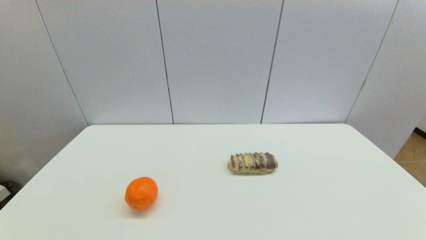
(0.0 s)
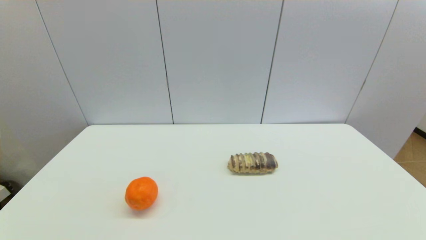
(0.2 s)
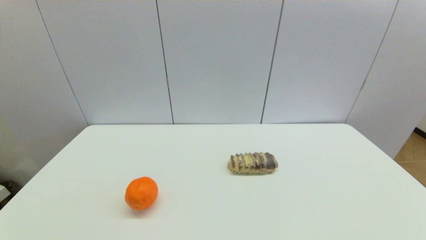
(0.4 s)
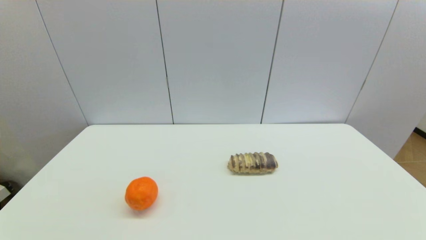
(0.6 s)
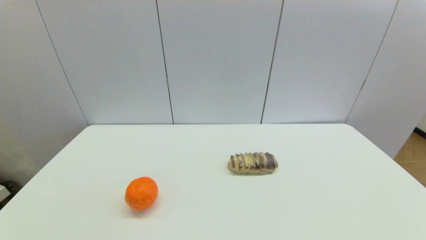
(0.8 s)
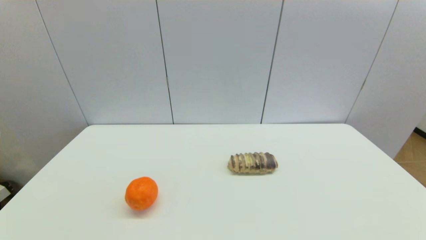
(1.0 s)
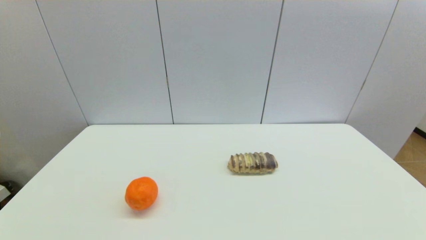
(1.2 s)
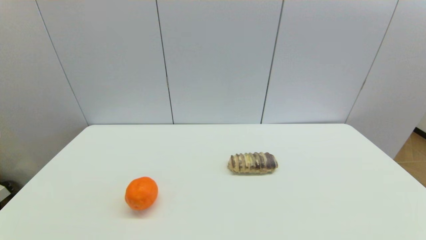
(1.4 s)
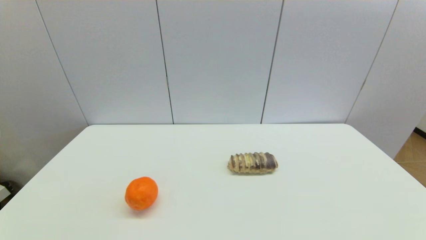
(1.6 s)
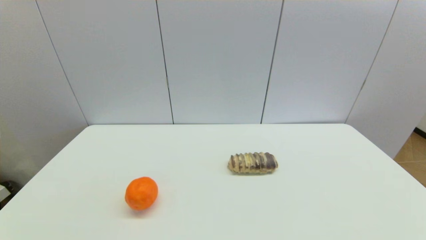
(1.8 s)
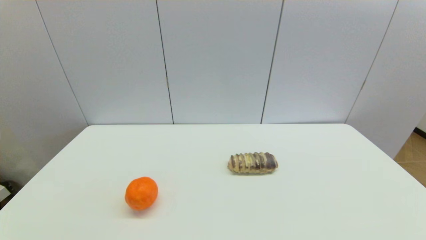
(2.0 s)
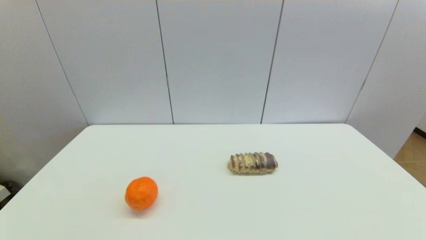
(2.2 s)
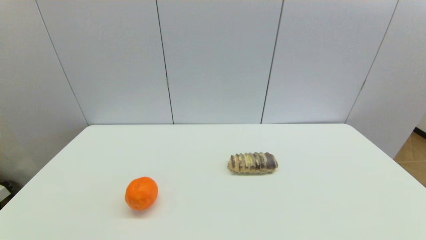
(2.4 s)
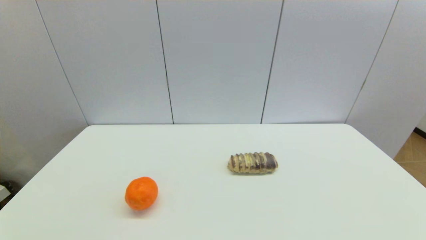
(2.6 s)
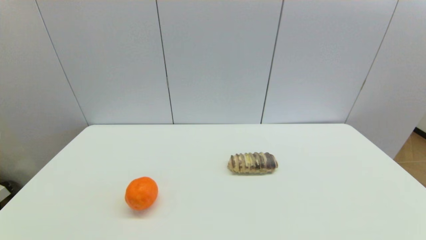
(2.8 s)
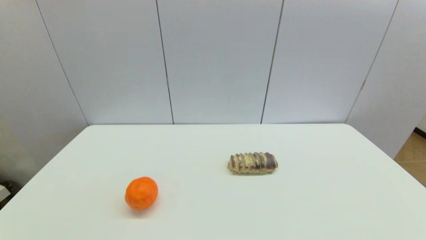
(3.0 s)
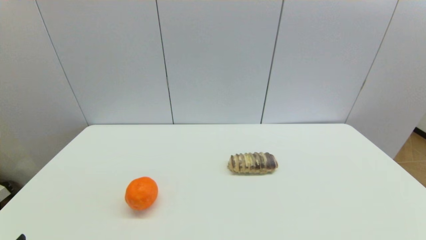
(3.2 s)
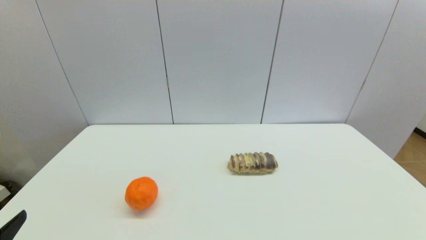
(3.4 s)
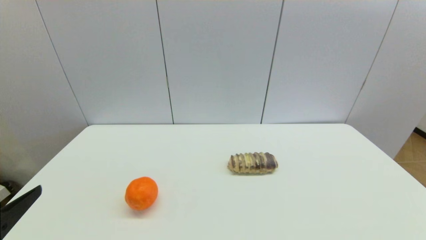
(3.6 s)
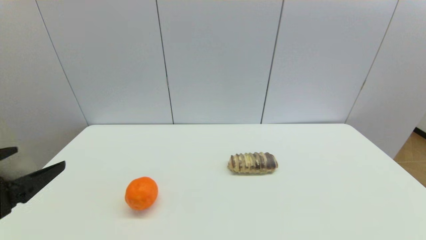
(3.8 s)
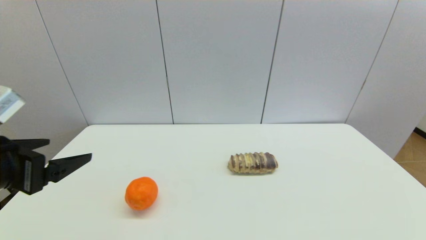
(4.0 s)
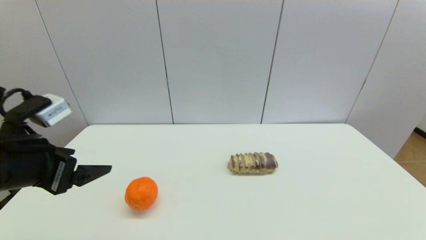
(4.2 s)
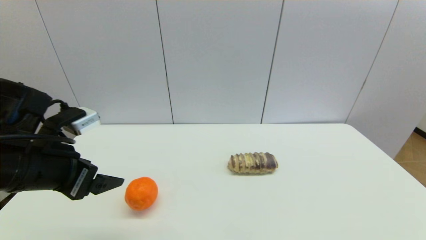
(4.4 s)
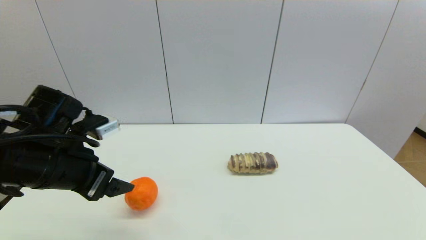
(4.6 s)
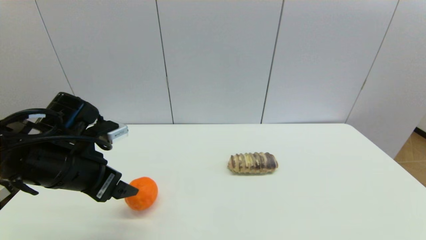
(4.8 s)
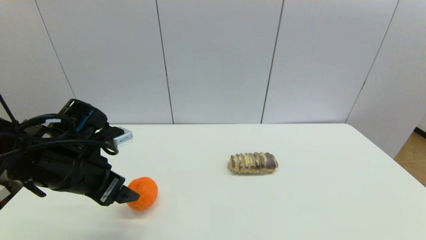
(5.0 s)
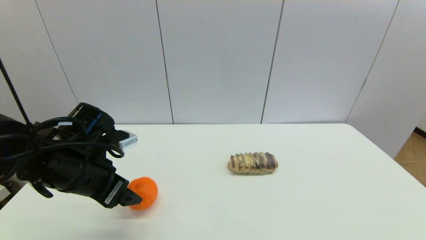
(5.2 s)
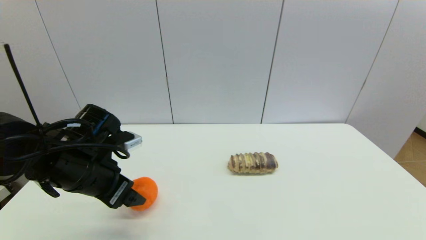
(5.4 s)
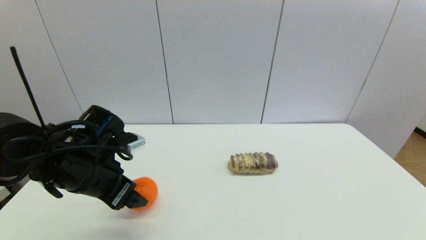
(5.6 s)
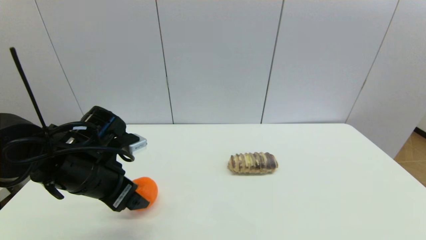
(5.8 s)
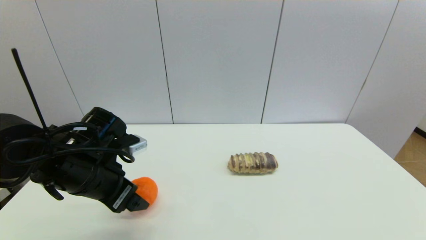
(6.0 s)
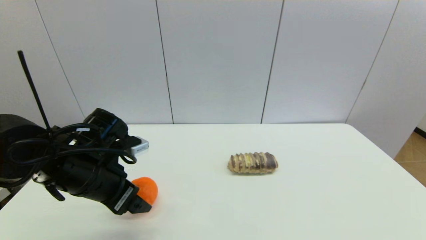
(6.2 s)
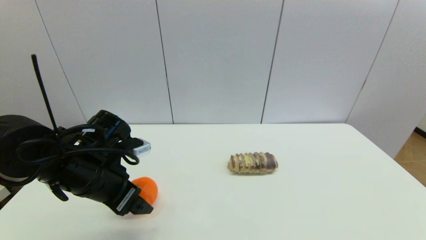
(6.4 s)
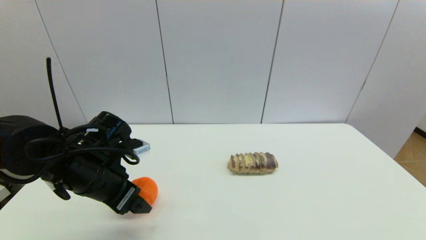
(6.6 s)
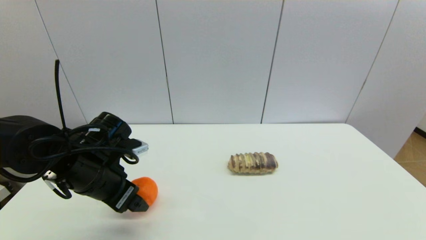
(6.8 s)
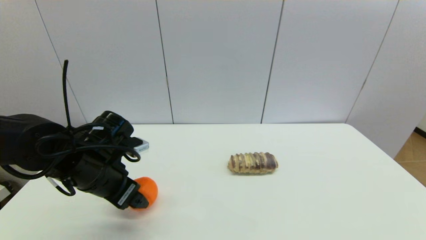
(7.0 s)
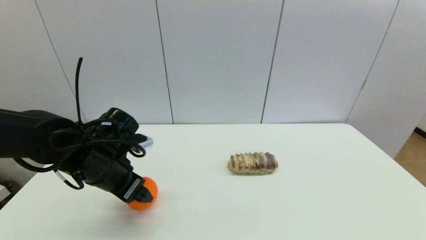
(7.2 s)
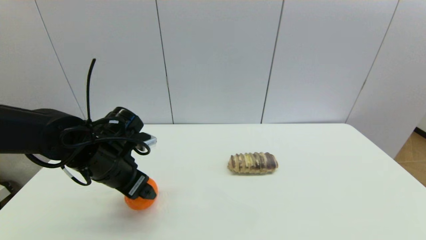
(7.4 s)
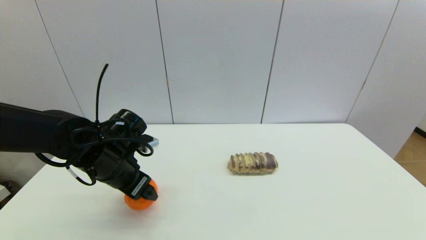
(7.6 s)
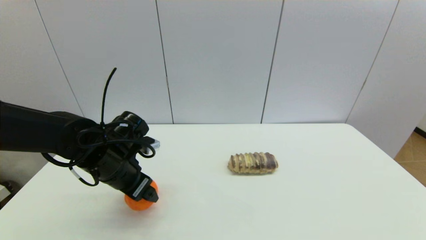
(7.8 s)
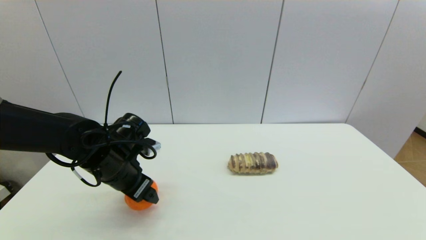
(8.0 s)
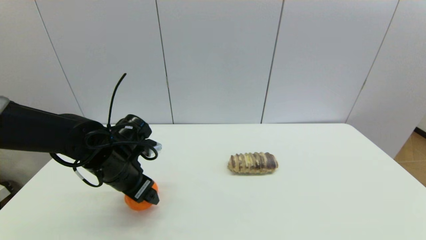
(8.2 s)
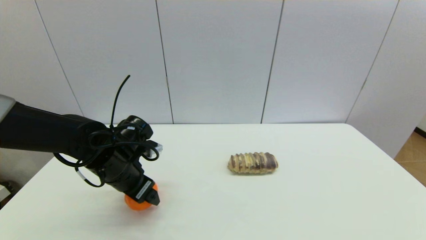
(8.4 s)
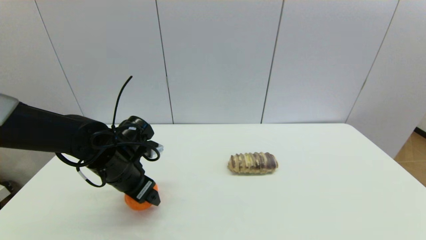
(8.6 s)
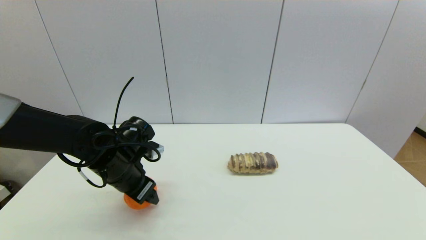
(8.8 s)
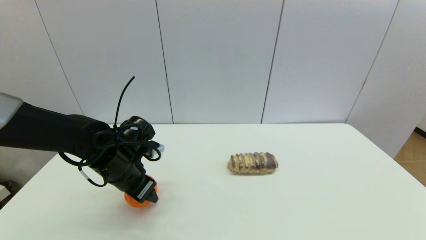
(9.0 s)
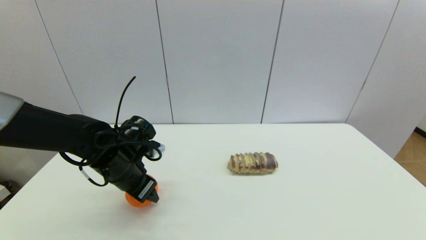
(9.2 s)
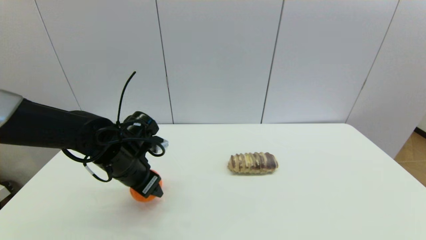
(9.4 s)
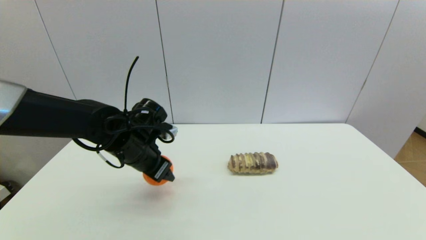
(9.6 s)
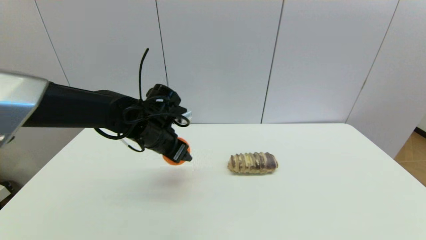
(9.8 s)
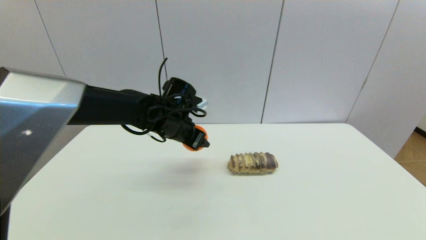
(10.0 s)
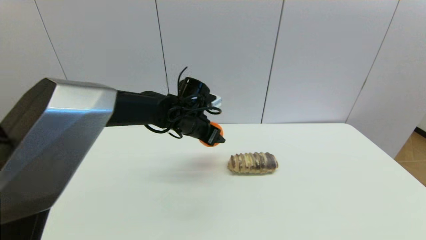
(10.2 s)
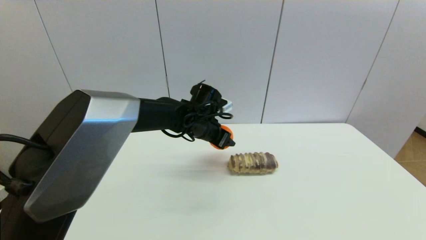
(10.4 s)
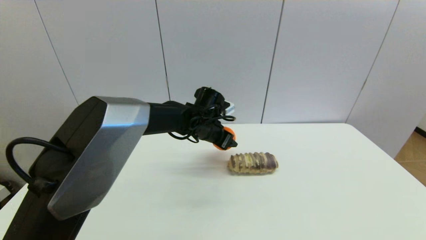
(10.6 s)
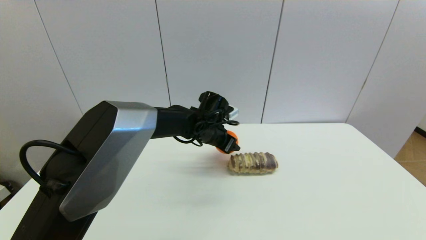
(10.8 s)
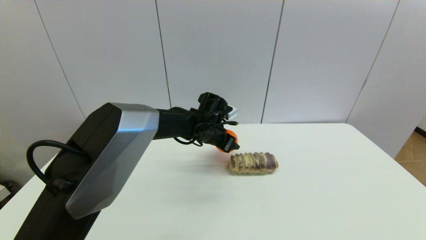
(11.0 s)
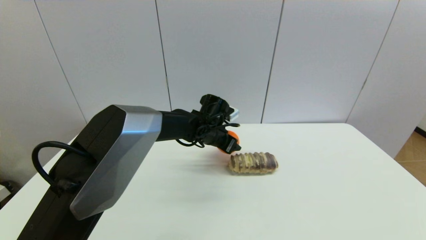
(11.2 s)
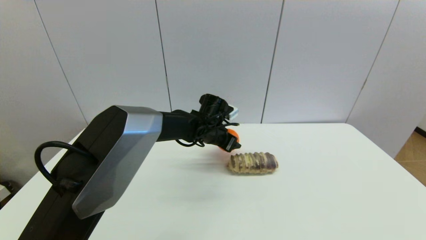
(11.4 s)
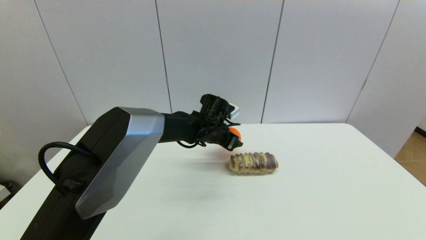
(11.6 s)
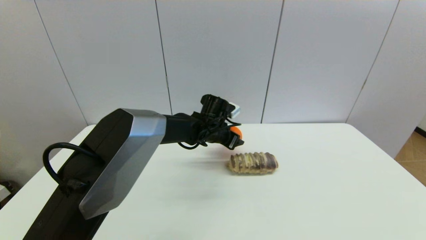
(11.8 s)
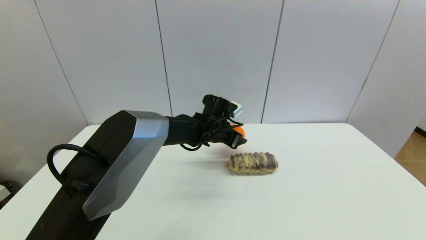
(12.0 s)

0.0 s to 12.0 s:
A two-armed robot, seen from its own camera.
Step, 3.4 to 9.2 s: Grasp the orange with left gripper.
0.0 to 1.6 s: Both grippers stay put.
3.0 to 4.4 s: The left gripper heads forward and upward, covering about 25 cm.
4.4 to 6.0 s: The left gripper goes approximately 5 cm downward.
6.0 to 7.6 s: The left gripper moves approximately 5 cm.
7.6 to 9.0 s: The left gripper closes up.
9.0 to 10.4 s: The left gripper moves to the right and forward, roughly 20 cm.
10.4 to 12.0 s: The left gripper shifts by roughly 5 cm.

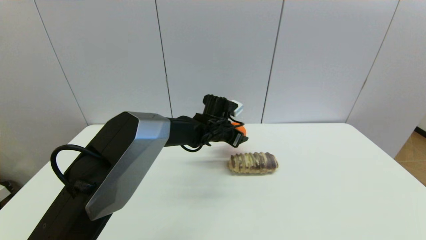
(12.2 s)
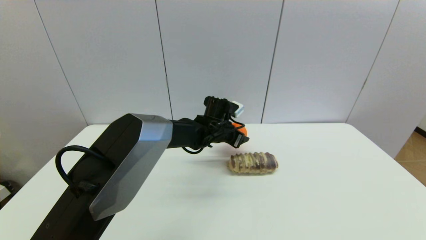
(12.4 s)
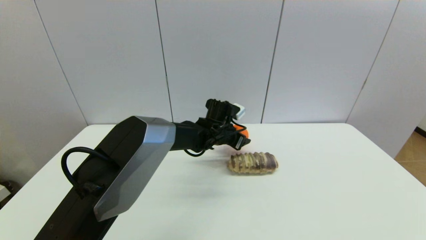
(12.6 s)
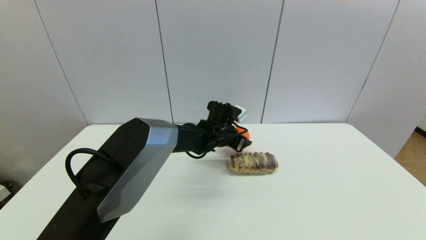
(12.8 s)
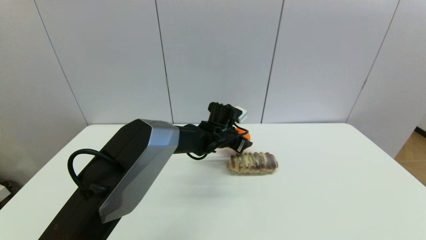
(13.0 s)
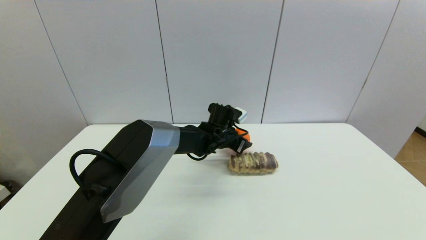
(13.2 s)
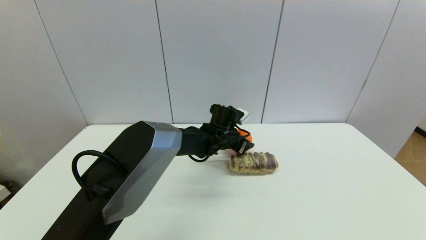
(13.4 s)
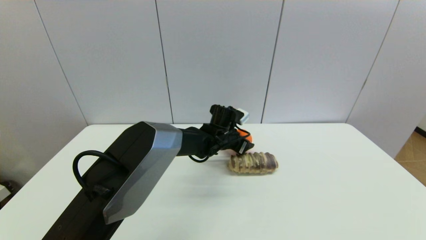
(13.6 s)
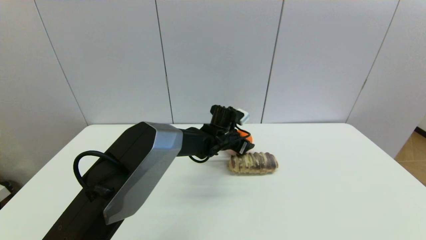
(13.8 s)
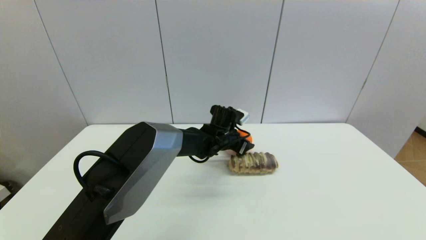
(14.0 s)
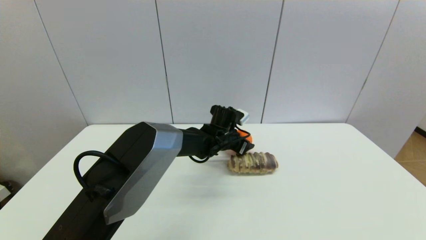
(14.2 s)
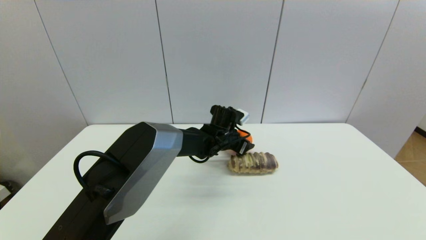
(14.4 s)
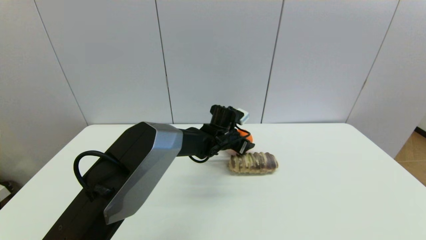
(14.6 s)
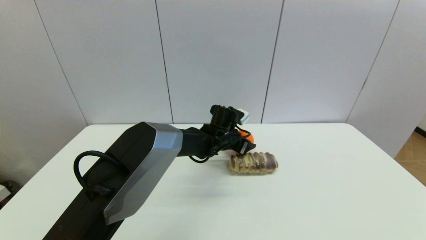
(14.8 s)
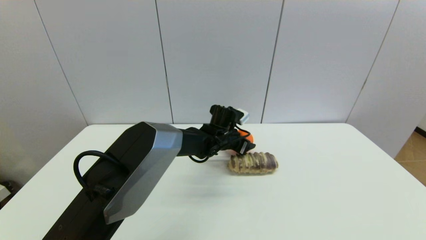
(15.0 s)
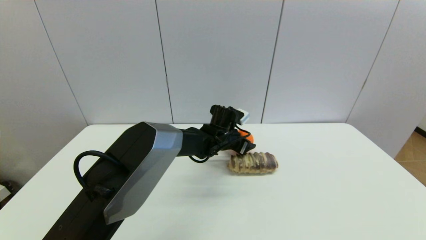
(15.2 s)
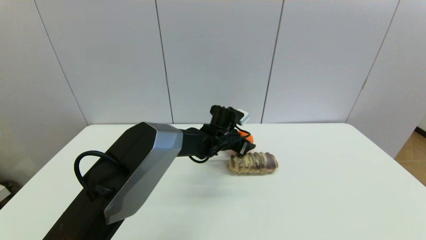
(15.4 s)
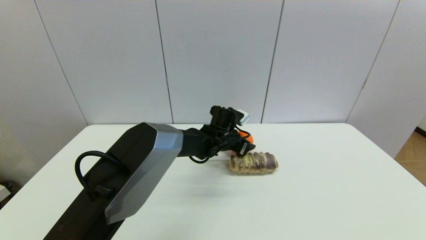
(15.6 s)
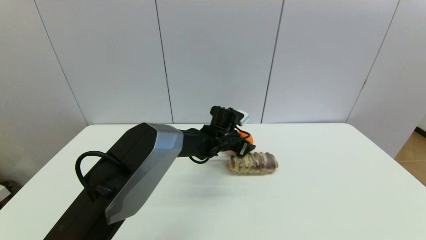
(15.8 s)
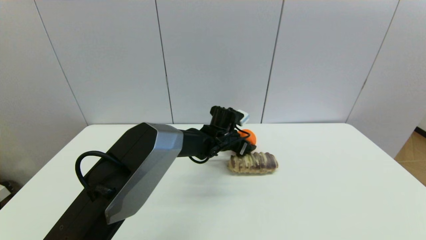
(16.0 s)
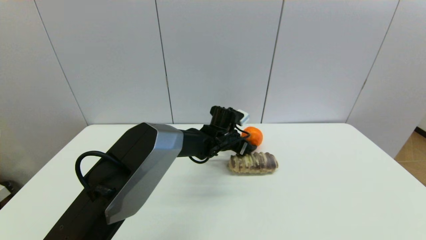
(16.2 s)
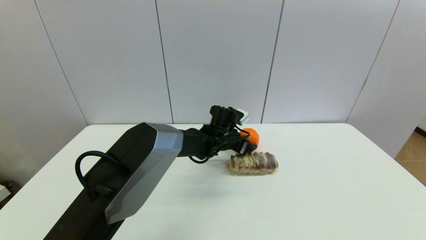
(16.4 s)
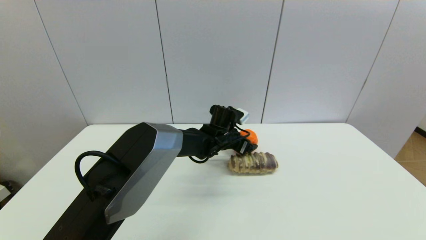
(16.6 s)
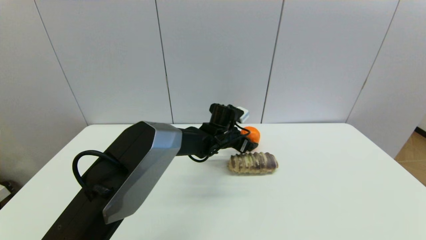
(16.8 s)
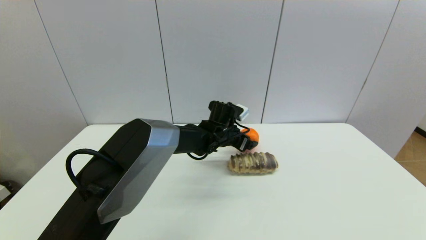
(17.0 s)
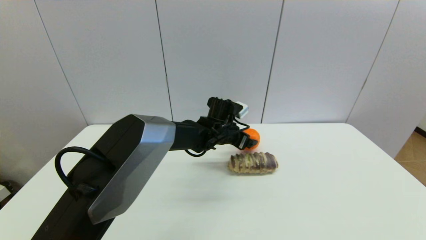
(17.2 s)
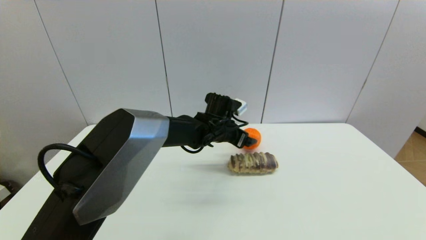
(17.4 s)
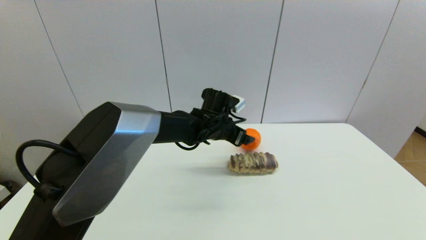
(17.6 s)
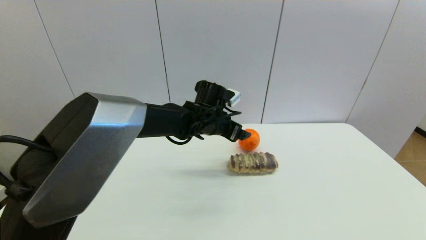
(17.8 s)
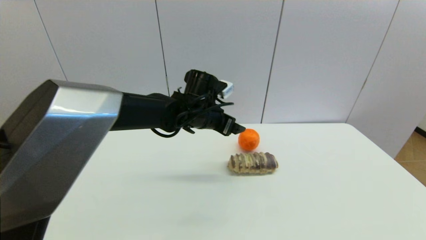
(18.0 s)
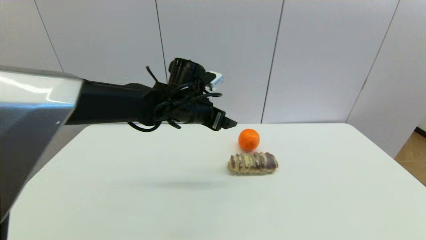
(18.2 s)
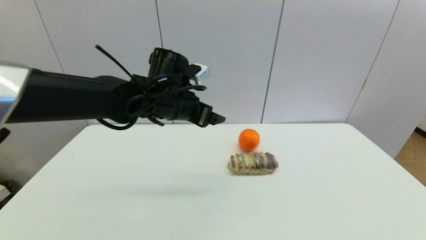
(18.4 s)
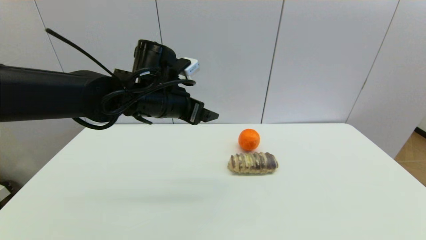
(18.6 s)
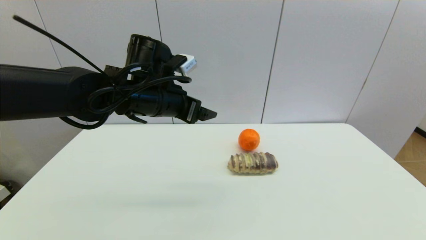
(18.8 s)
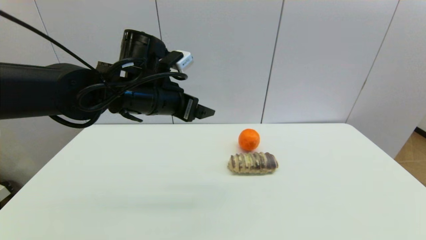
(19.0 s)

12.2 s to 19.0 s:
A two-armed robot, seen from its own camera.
Step, 12.2 to 16.2 s: Place the orange on the table with left gripper.
12.2 to 13.6 s: There are only small adjustments of the grippers.
13.6 to 15.0 s: Neither gripper changes place.
15.0 to 16.2 s: The left gripper opens its fingers.
16.2 to 17.6 s: The left gripper shifts approximately 5 cm upward.
17.6 to 19.0 s: The left gripper is displaced upward, to the left and backward by some 20 cm.
